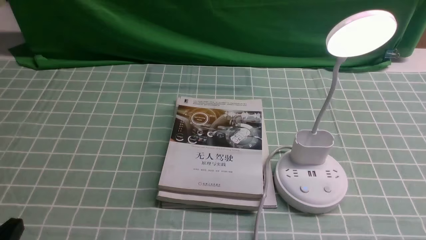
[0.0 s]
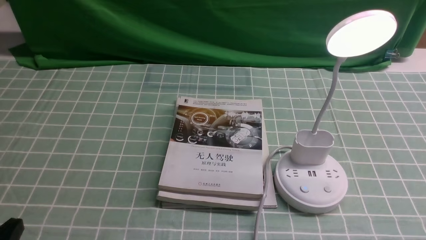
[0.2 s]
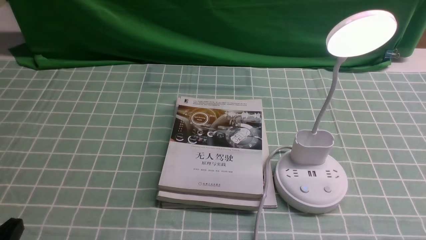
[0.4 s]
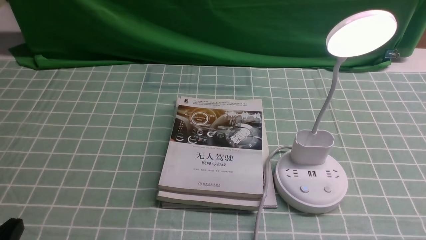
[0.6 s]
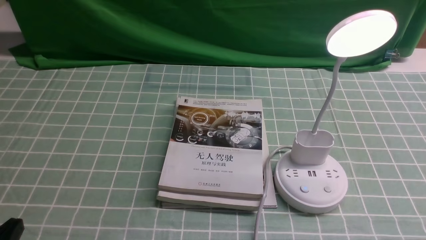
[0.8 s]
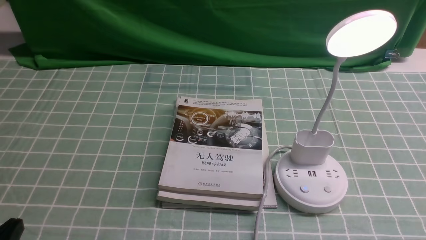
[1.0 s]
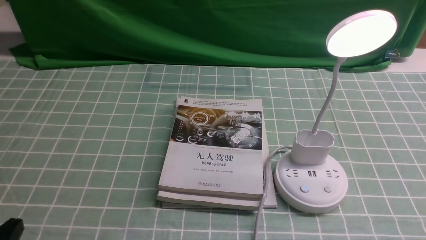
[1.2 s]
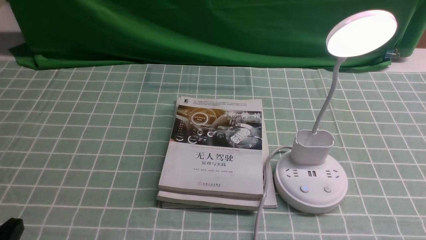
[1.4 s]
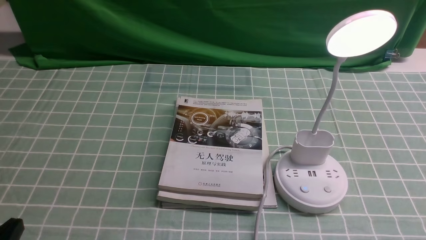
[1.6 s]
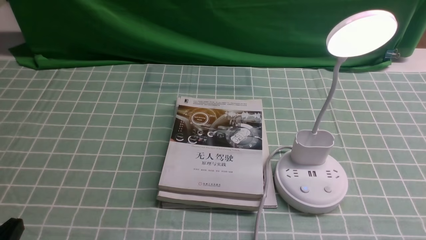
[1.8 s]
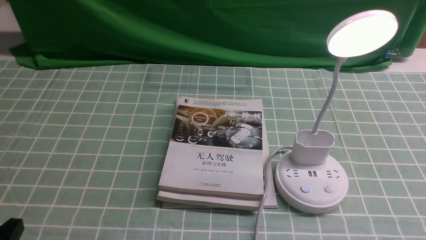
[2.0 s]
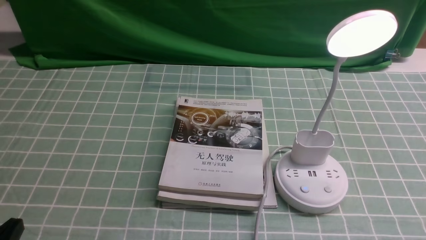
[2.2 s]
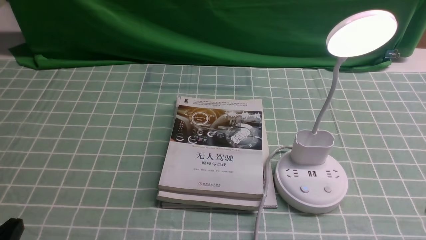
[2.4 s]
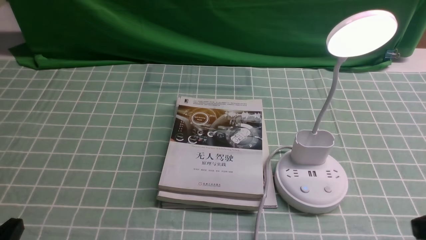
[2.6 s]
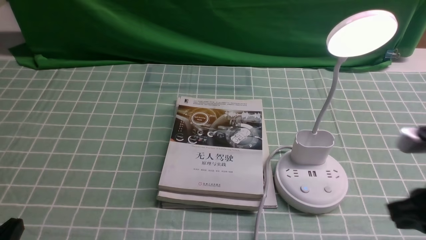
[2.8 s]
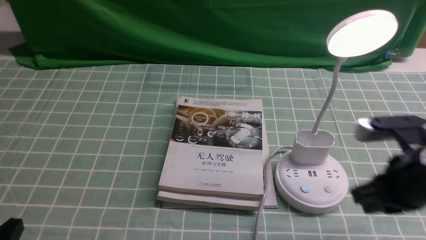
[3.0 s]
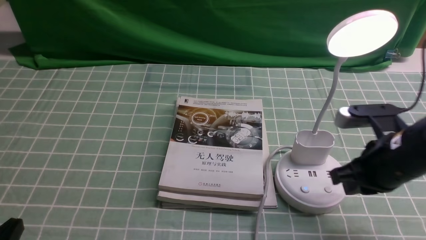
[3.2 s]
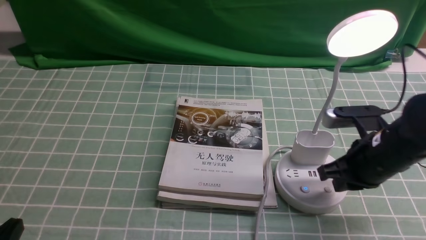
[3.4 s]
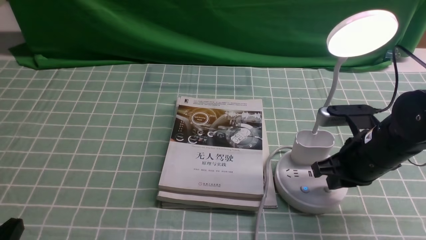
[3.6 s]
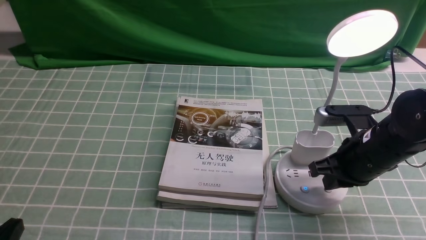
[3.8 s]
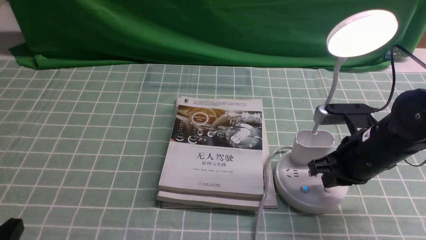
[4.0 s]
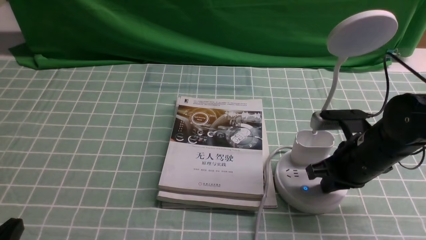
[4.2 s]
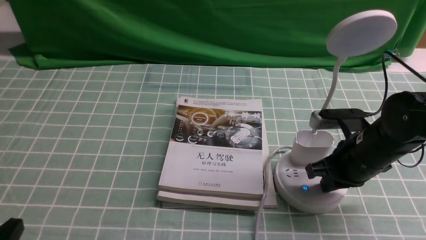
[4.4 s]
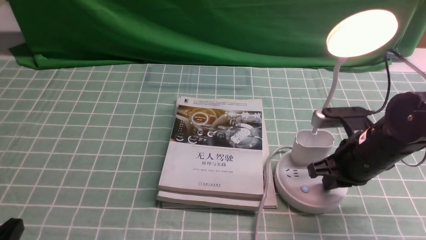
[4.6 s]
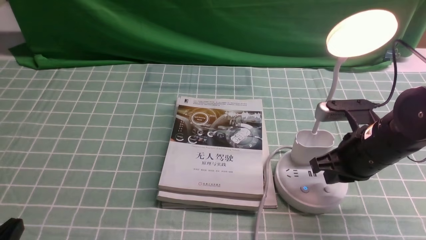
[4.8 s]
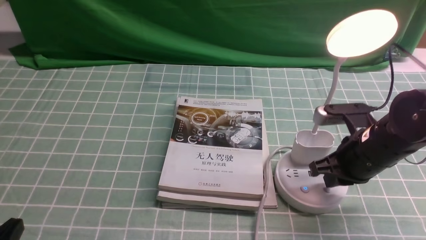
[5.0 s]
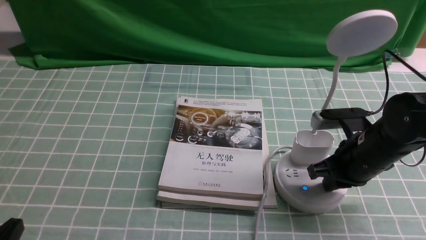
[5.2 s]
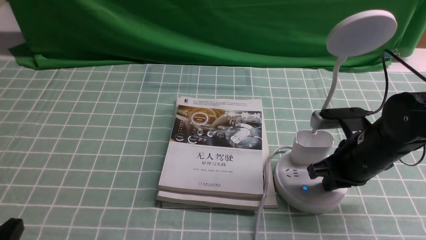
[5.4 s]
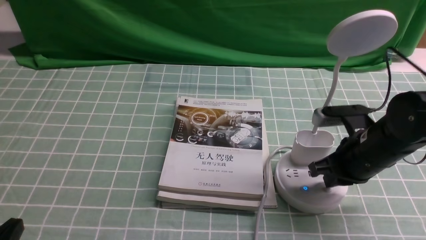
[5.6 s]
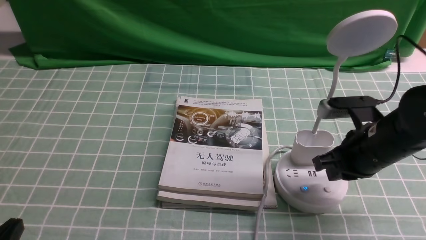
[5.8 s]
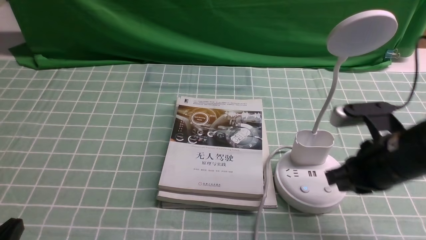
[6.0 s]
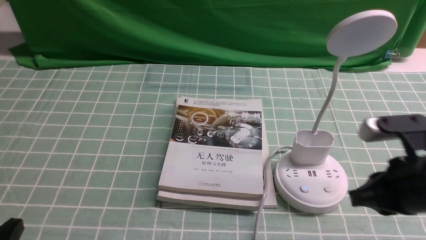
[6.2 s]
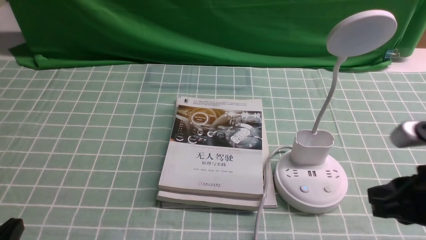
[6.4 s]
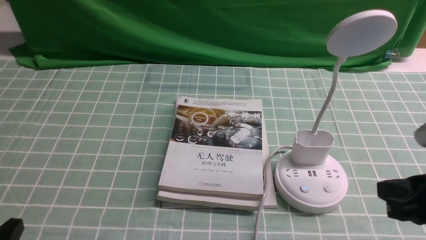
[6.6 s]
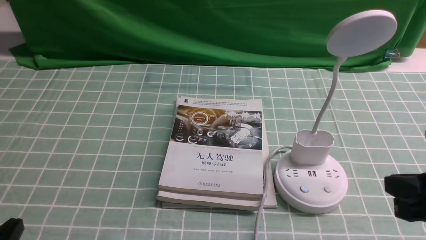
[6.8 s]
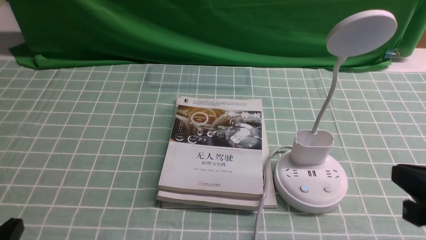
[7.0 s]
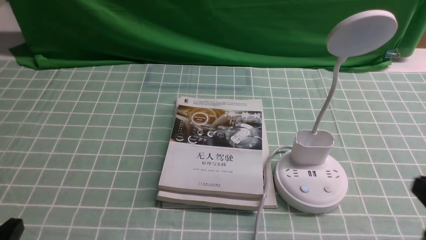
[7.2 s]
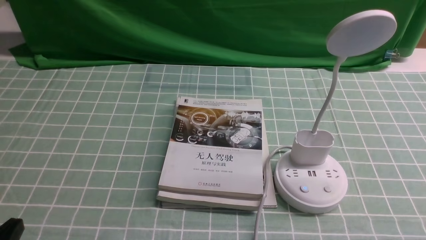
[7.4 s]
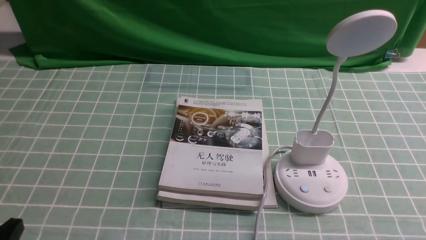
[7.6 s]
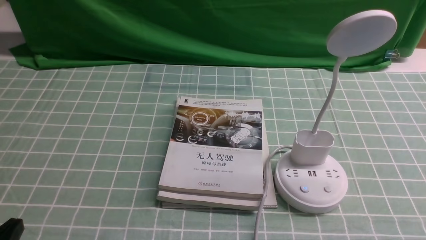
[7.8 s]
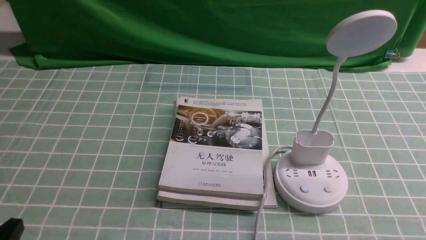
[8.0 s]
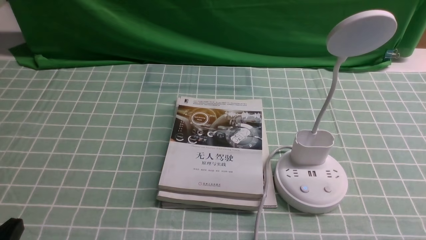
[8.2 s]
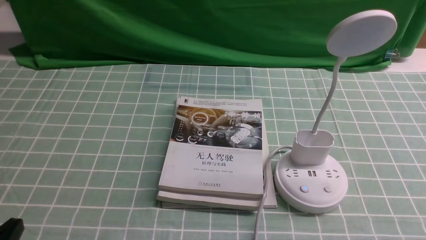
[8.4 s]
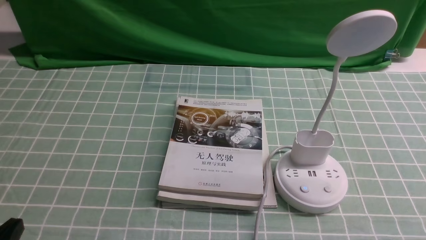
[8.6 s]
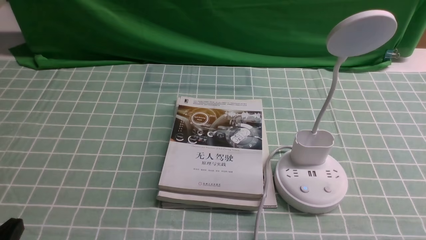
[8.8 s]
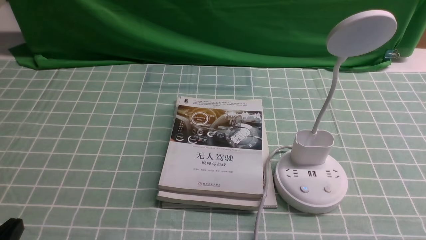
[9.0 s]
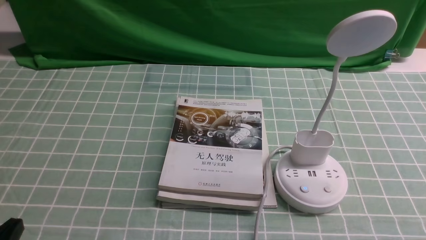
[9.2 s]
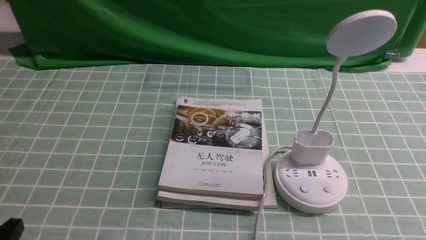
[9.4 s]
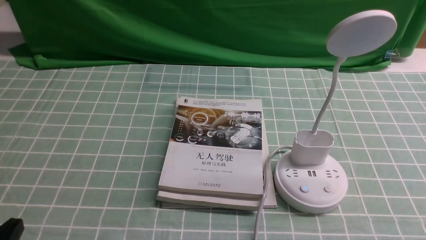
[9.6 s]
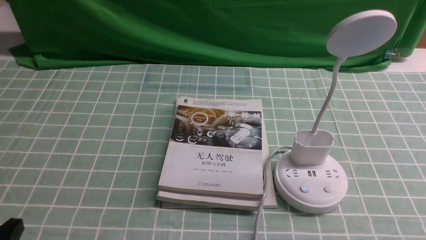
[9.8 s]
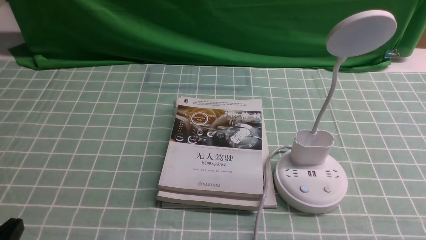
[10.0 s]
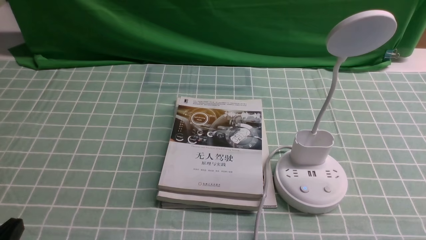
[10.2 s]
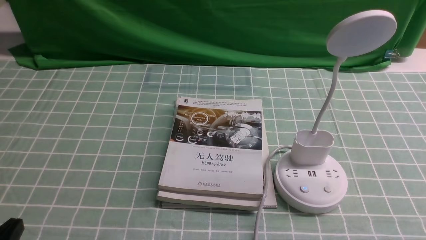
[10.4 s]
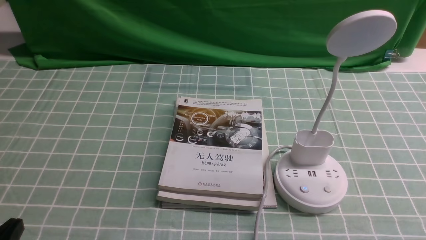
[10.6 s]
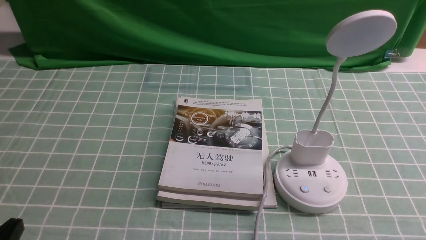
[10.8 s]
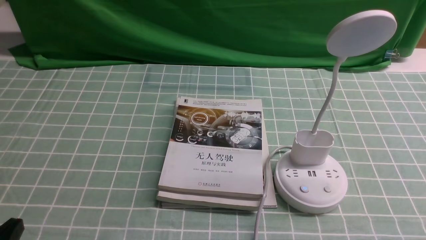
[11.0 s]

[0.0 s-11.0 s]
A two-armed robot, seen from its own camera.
Task of the whole recording: turn off the desk lamp on the blue coffee tablecloth by hand.
Step, 0.0 to 6.2 s: use the right arm to press the button switch on the lamp holder.
1.6 to 3.2 s: The right gripper is displaced forward and to the left by roughly 20 cm, and closes up.
3.2 to 4.8 s: The grippers stay close to where they were, moving slightly.
4.8 to 6.2 s: The right gripper travels backward and upward by approximately 10 cm.
6.2 to 7.8 s: The right gripper heads backward and to the right, covering approximately 15 cm.

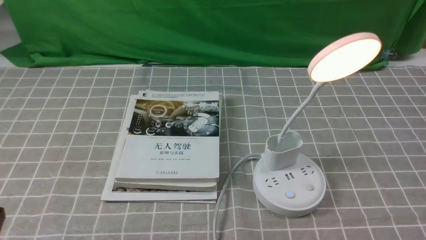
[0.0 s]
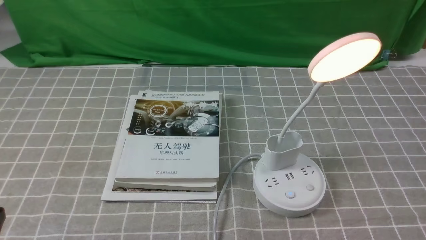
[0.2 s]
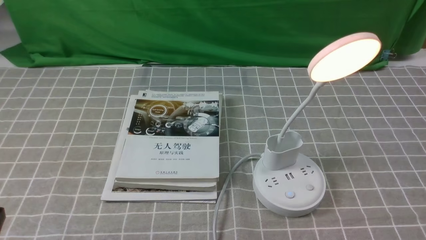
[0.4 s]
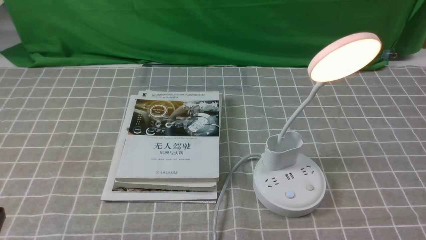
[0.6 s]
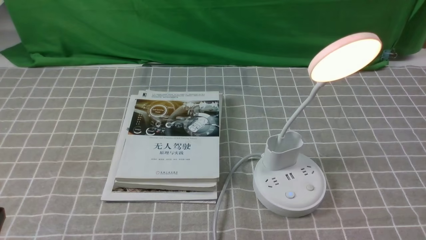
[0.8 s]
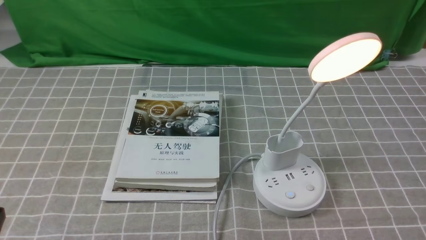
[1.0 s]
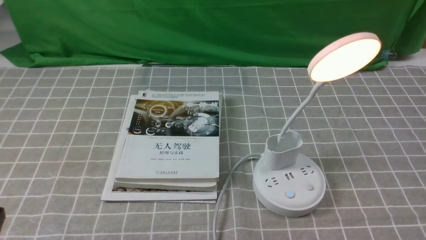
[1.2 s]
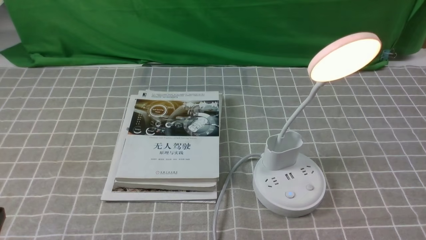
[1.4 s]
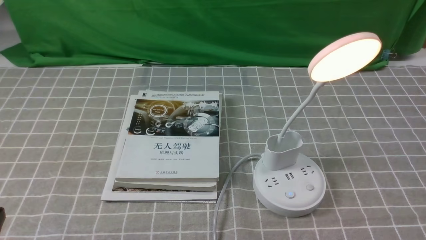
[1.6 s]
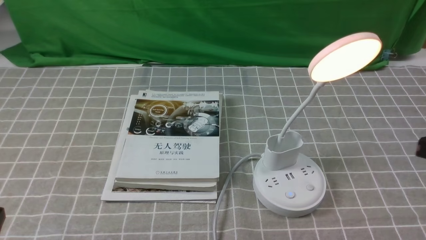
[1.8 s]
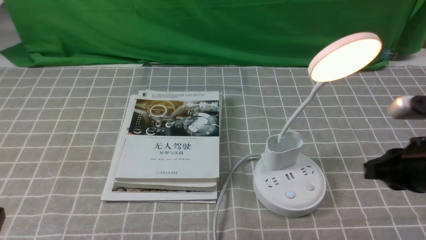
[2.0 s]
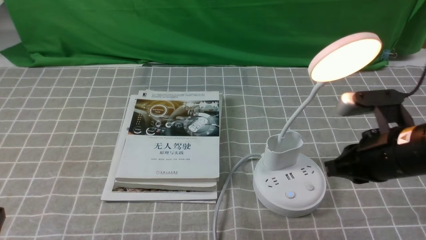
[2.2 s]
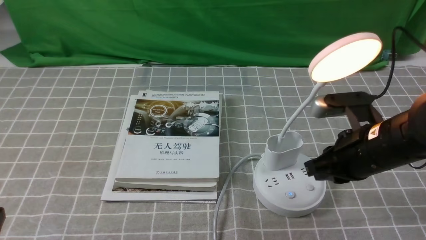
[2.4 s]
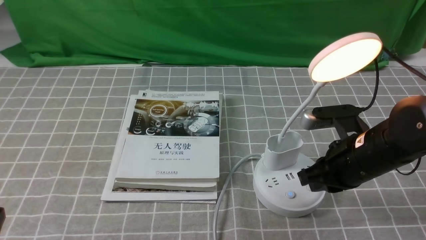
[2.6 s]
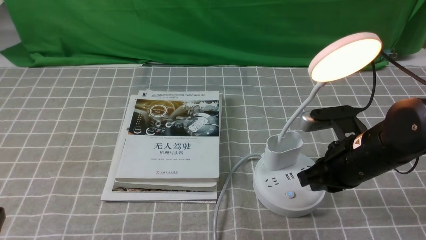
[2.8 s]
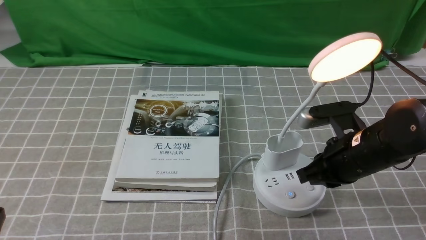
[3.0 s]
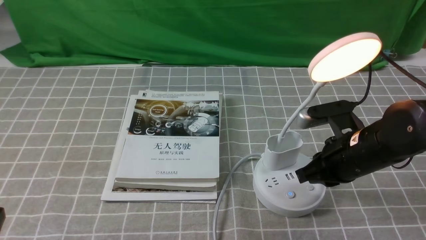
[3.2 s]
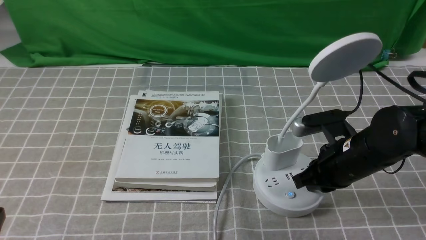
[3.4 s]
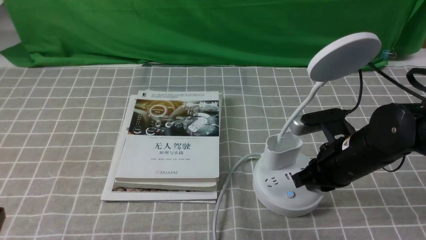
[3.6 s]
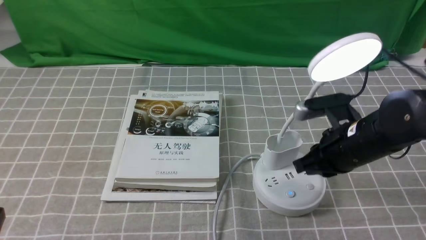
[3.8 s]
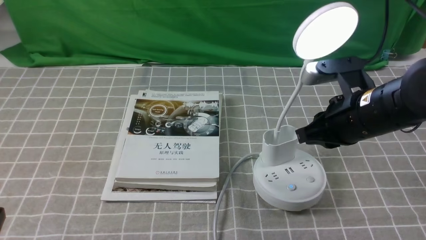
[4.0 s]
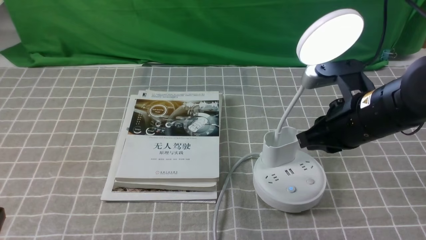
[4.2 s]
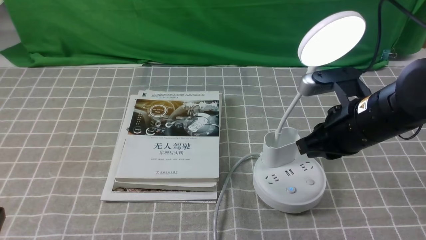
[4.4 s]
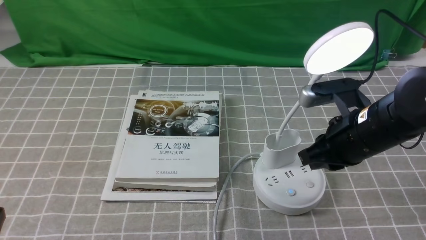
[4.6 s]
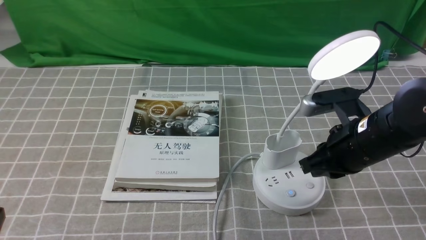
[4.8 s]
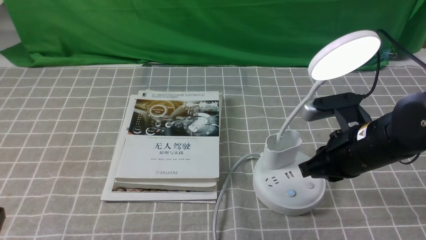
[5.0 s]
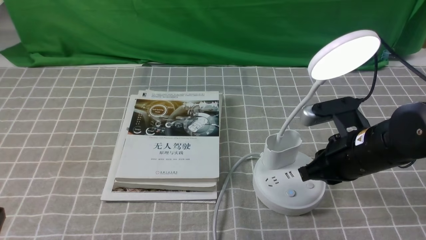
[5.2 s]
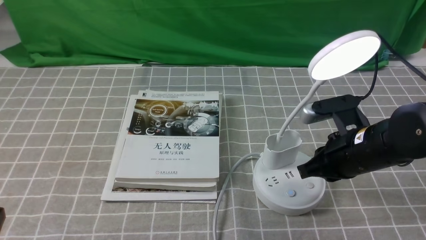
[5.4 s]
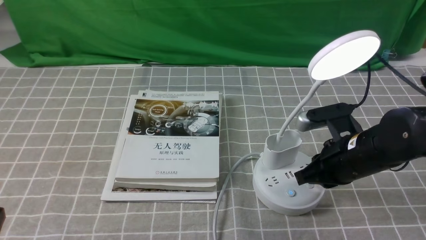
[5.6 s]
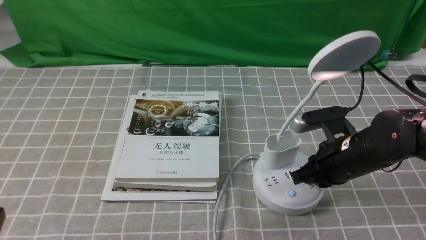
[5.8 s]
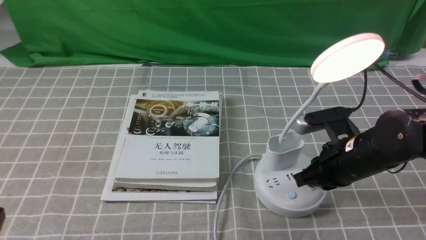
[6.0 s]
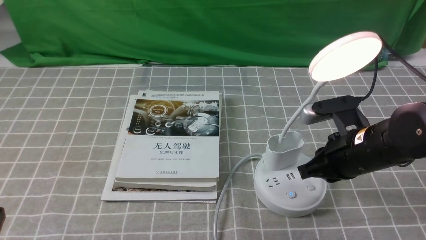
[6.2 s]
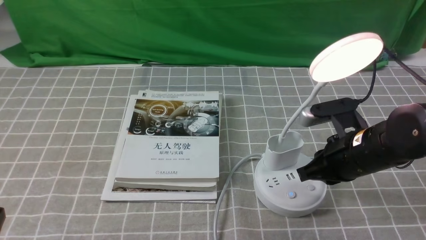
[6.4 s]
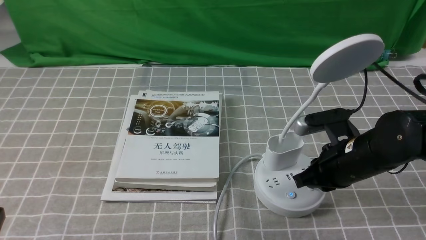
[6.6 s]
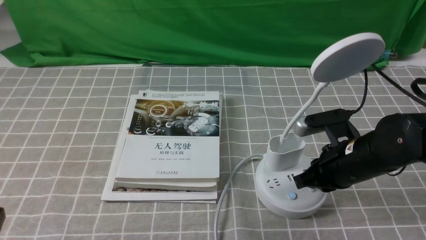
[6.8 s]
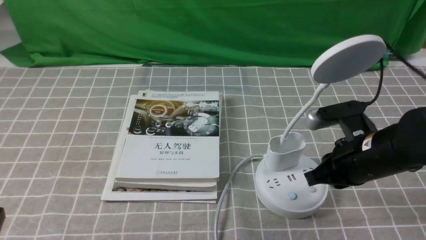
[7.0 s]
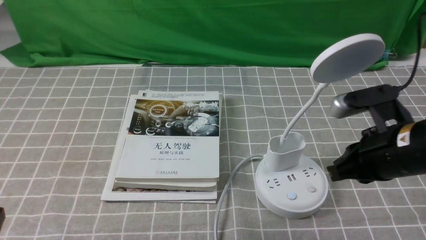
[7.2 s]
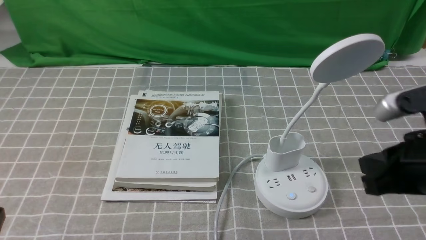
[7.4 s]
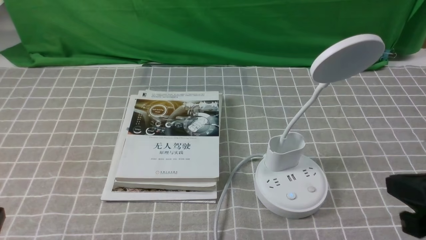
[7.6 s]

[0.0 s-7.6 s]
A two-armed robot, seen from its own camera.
Task of the whole recording: turn off the desk lamp on the grey coffee tablecloth by hand.
Step, 0.0 to 7.0 s: use the right arm to press the button switch on the lamp holder.
1.6 to 3.0 s: The right gripper travels downward, forward and to the left by about 20 cm.
3.0 to 4.6 s: The grippers make only small movements.
4.6 to 6.0 s: The right gripper closes its fingers.
6.0 to 7.6 s: The right gripper heads backward, upward and to the right, covering approximately 20 cm.
